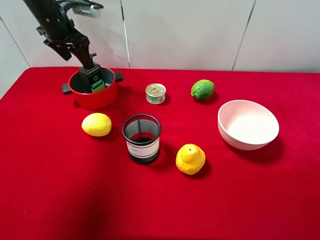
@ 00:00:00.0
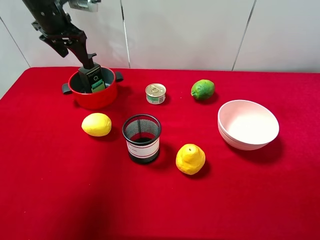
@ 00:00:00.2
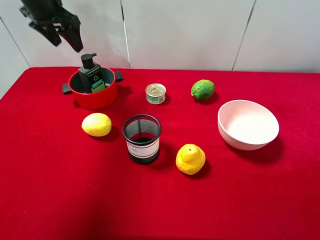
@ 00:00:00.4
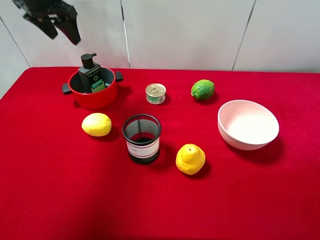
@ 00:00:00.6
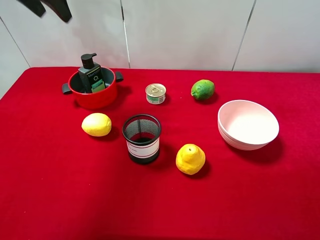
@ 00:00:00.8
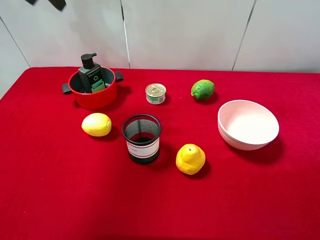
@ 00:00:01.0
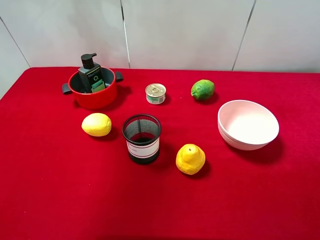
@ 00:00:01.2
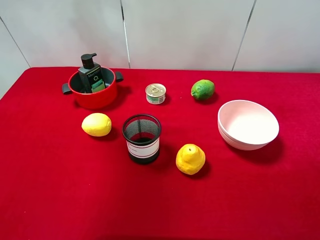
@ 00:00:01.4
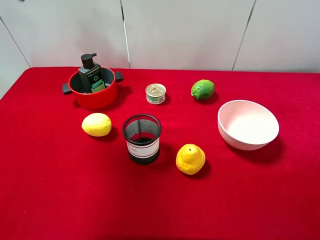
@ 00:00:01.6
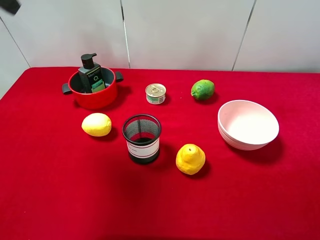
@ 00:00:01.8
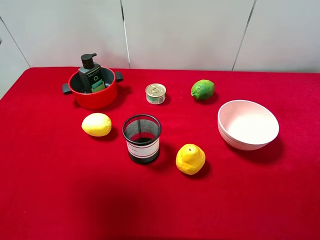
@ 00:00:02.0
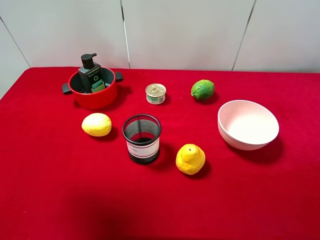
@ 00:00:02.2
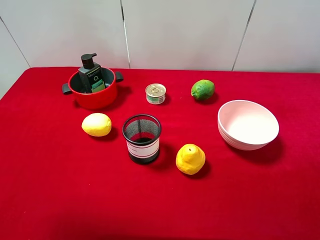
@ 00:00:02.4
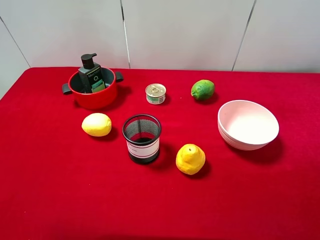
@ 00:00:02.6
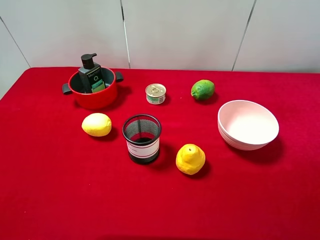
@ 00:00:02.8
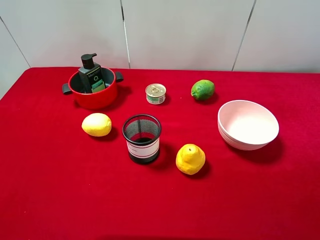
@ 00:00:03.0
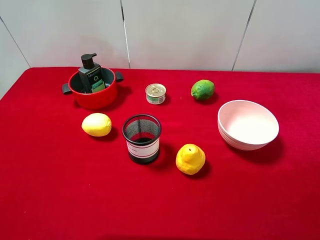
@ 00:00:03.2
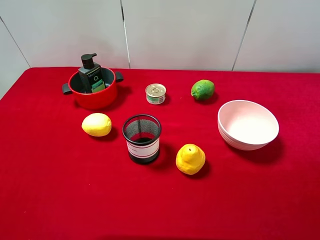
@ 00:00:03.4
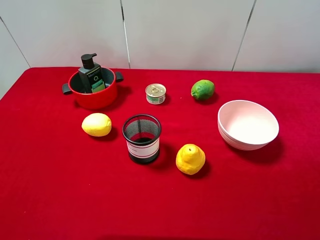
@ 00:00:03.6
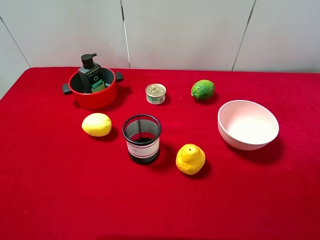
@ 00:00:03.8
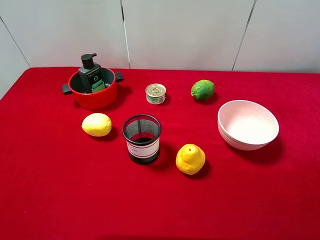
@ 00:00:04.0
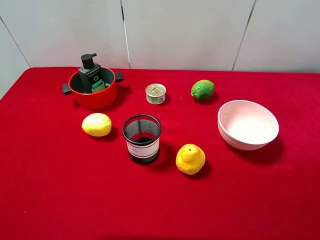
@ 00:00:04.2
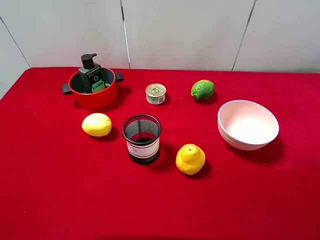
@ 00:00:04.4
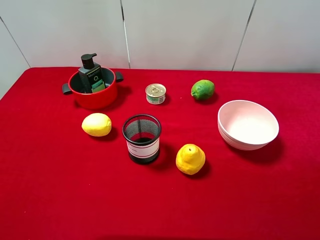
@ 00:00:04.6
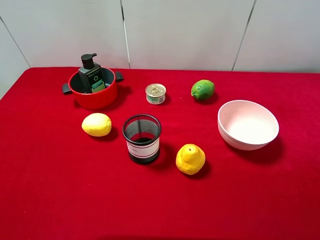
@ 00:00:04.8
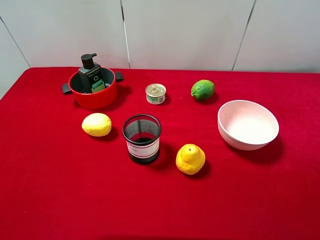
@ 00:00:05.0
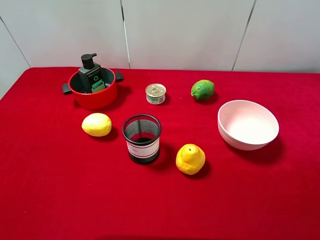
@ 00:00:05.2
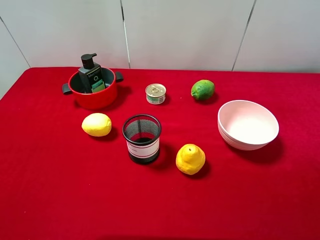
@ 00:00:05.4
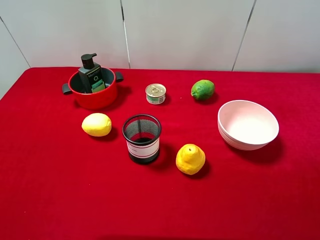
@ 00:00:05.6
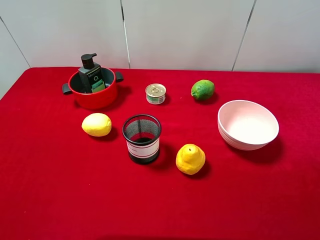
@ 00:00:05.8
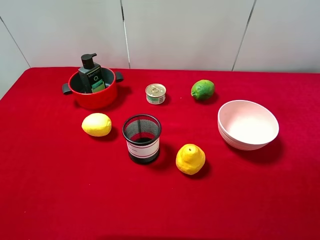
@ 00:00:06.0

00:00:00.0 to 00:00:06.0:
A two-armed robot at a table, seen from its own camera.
Task of the whole recording: pick up an item with a gripper and place it in a random container on the desktop.
00:00:00.0 to 00:00:01.6: The left gripper shifts some 25 cm upward and backward.
00:00:04.4 to 00:00:06.0: Both grippers stay about where they are.
